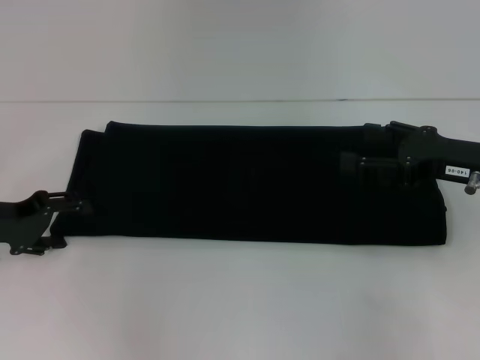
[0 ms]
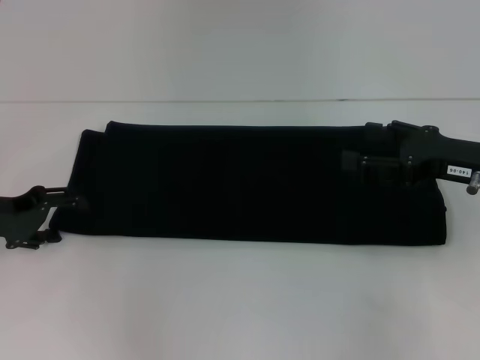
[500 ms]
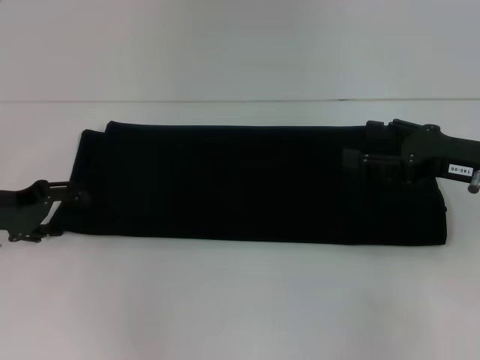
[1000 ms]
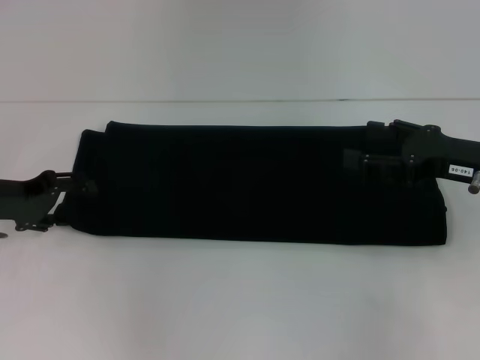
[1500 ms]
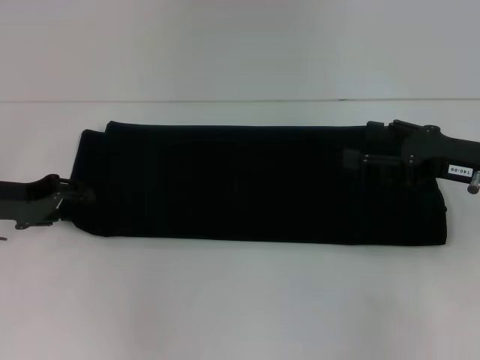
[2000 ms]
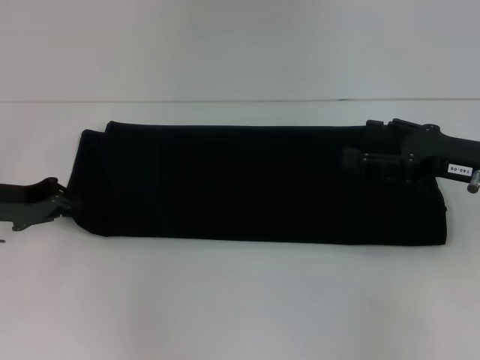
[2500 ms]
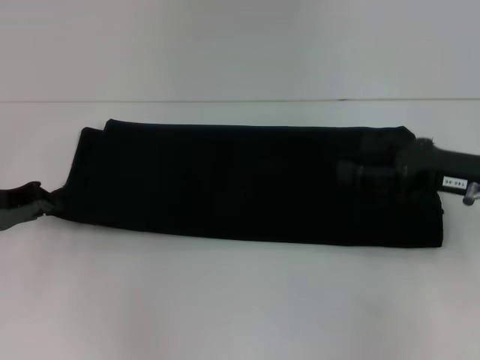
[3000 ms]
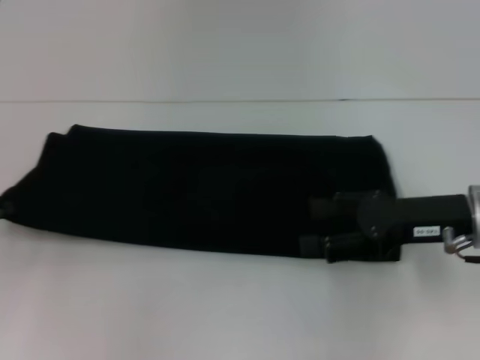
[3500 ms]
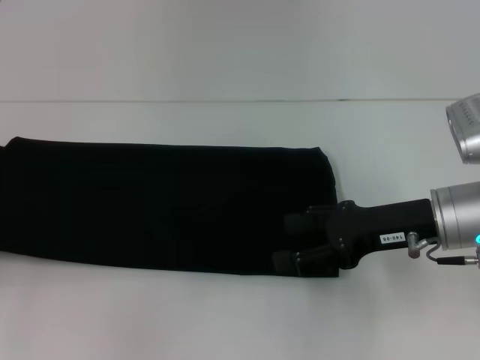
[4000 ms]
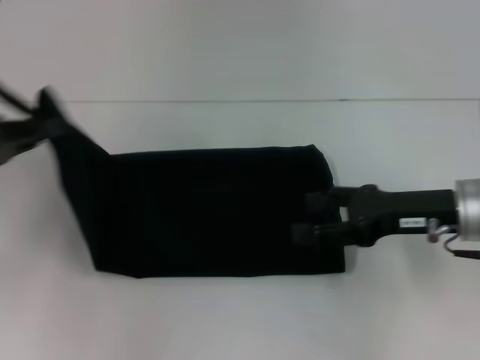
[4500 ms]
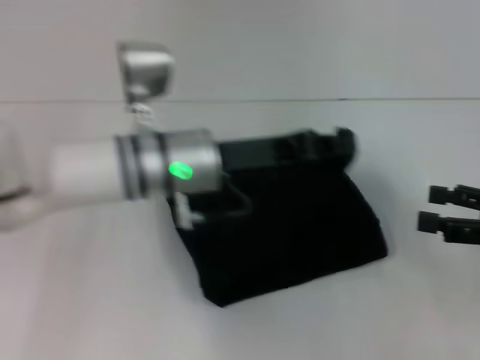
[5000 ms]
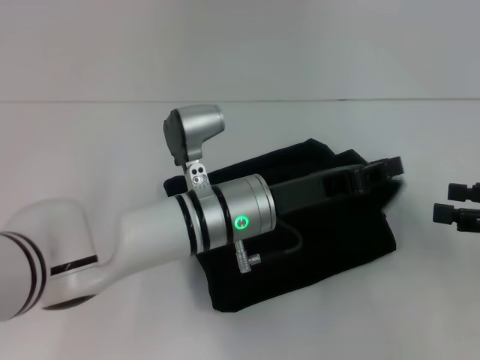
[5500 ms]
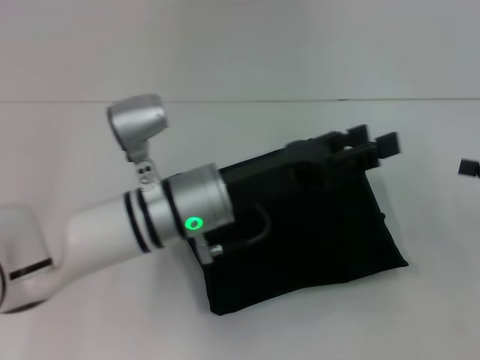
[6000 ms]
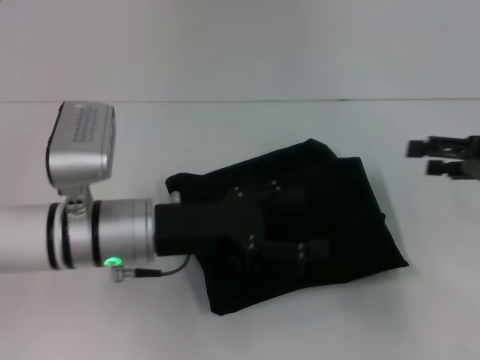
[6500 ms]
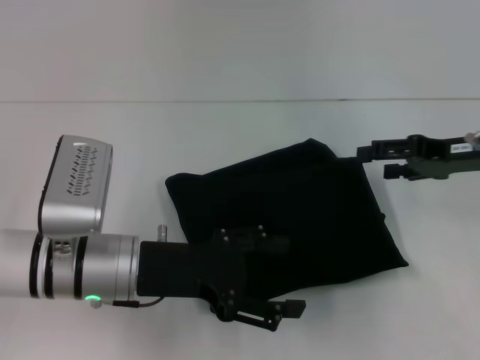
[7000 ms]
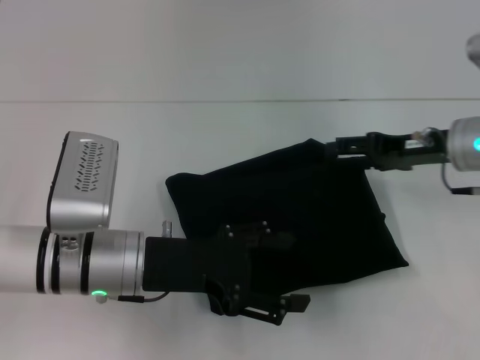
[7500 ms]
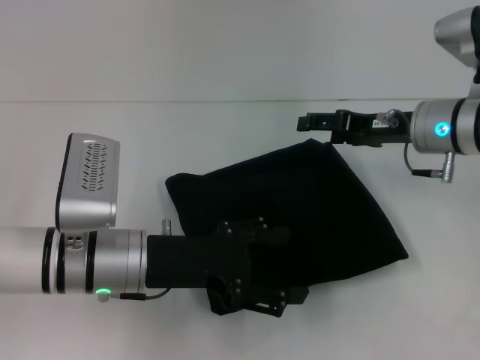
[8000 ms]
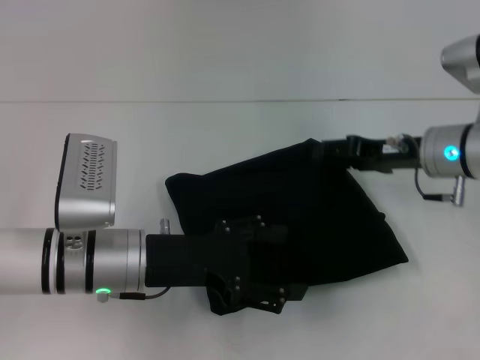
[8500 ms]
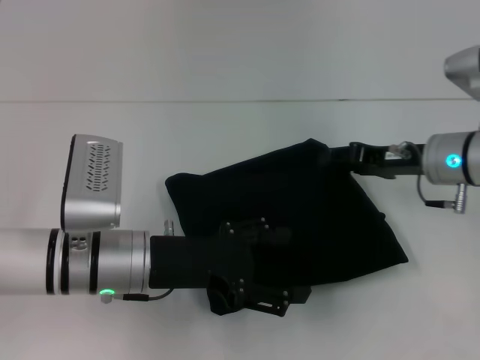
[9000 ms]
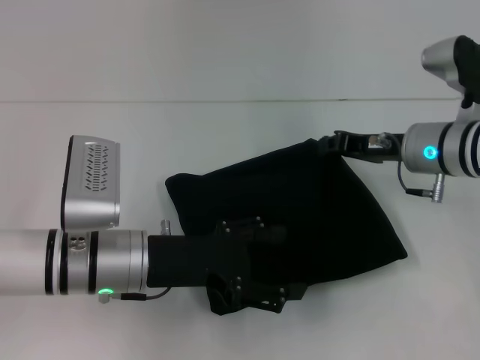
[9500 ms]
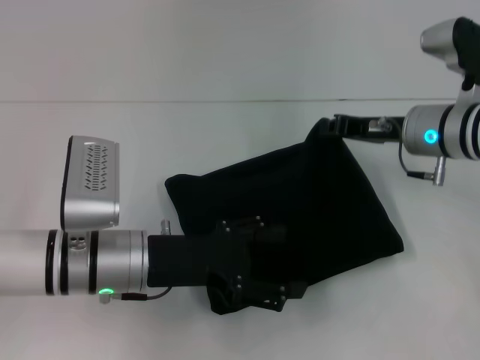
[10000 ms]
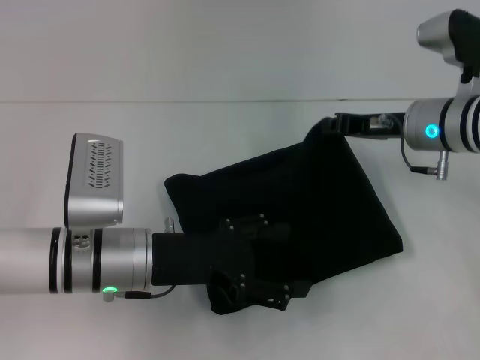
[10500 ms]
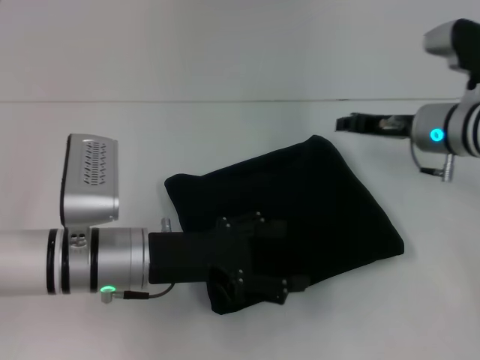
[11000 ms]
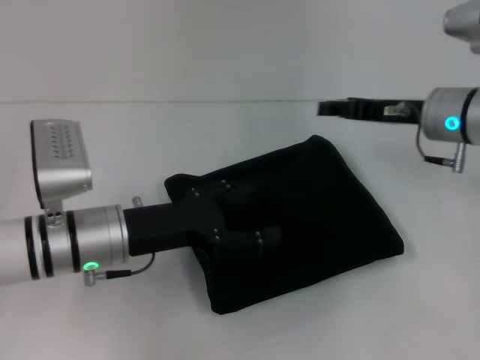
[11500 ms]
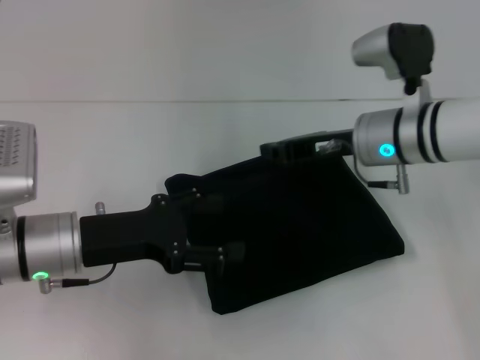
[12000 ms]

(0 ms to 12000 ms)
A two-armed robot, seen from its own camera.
Step, 0 ms - 9000 ms: Fold the clothes with your left hand.
0 ms - 2000 ms: The grippers move only a little.
2000 ms - 4000 ms: The left gripper shifts some 15 cm to the left and backward, and closes. Meanwhile the right gripper shifts approximately 5 cm to the left.
4000 ms - 6000 ms: The left gripper shifts roughly 35 cm to the right, and opens. Meanwhile the right gripper moves to the right, some 20 cm.
6000 ms - 8000 ms: The right gripper travels to the left and forward by approximately 20 cm. Meanwhile the left gripper goes some 10 cm to the left, and opens its fingers.
8000 ms - 10000 ms: The right gripper closes its fingers.
10000 ms - 12000 ms: Both grippers travel together to the left, about 5 cm. The right gripper opens, then closes once more.

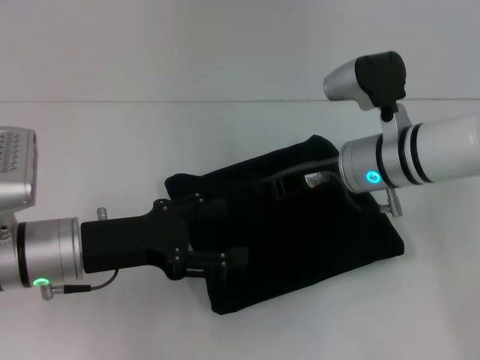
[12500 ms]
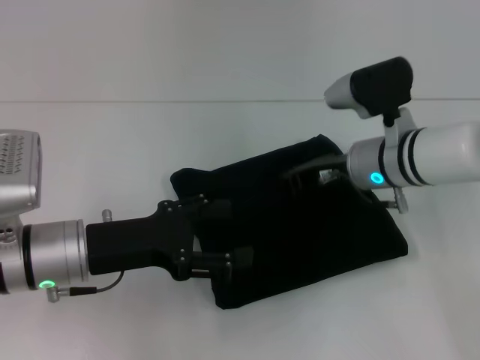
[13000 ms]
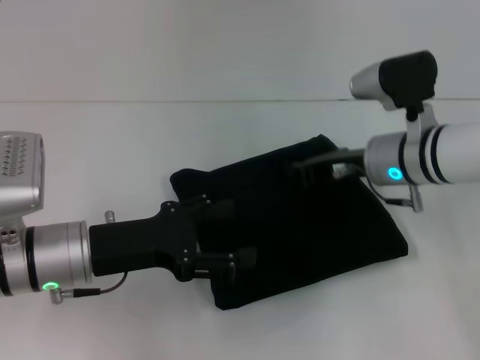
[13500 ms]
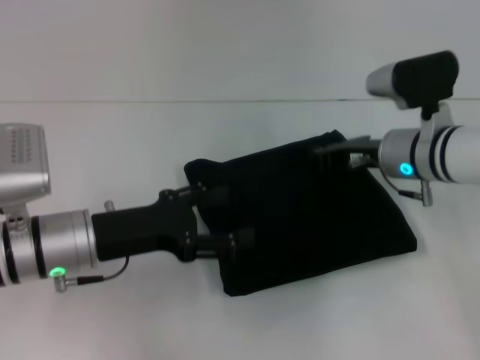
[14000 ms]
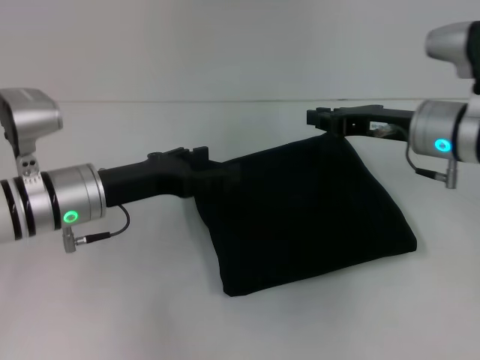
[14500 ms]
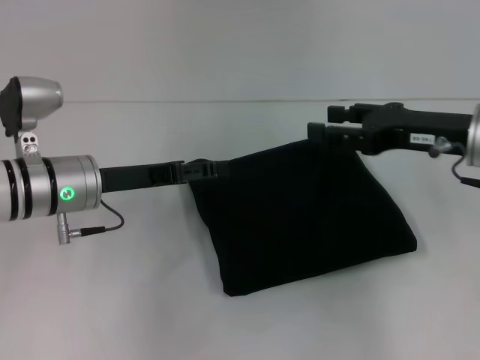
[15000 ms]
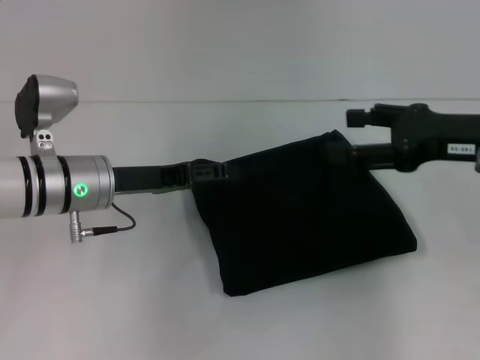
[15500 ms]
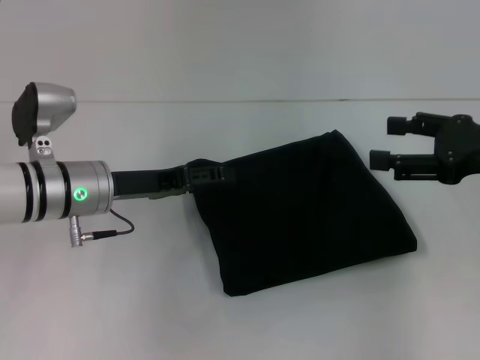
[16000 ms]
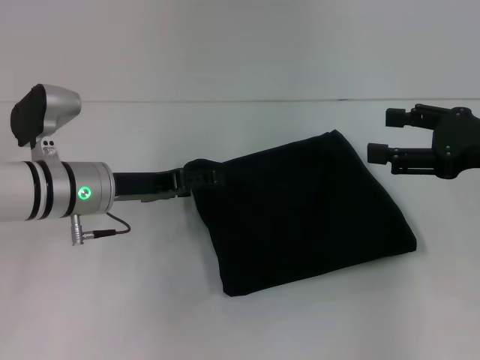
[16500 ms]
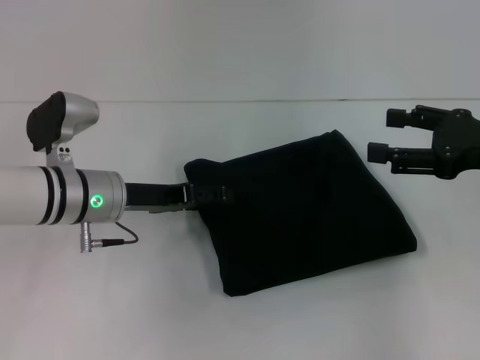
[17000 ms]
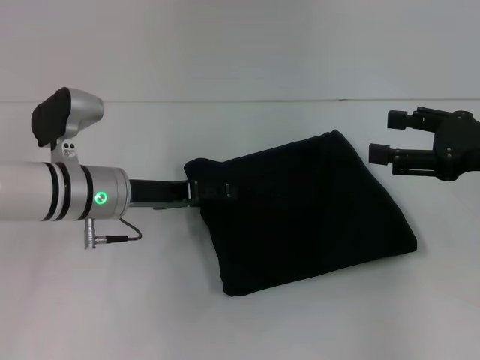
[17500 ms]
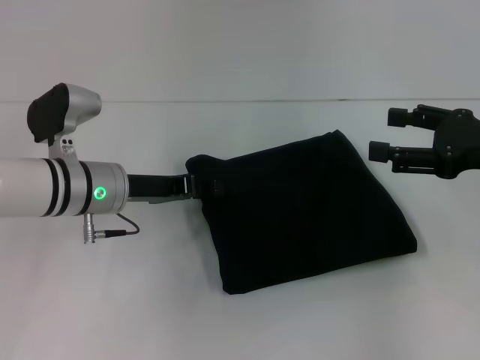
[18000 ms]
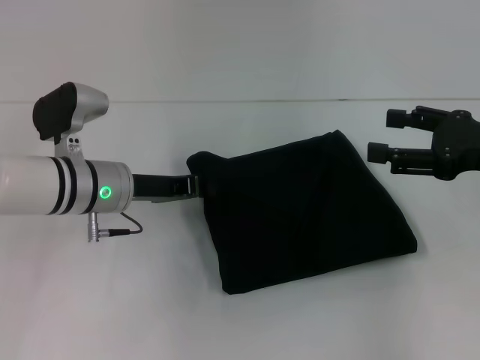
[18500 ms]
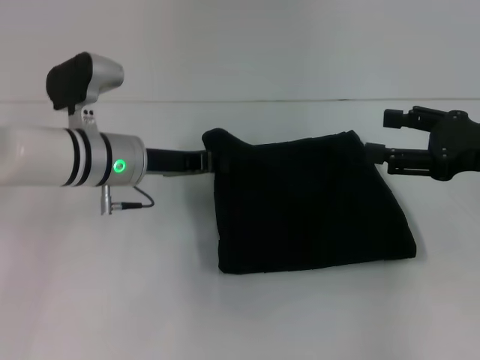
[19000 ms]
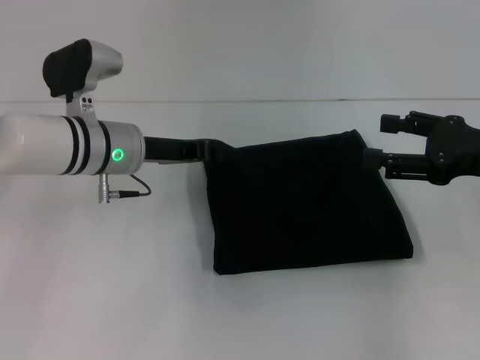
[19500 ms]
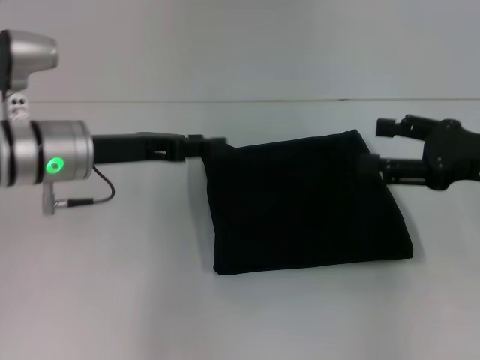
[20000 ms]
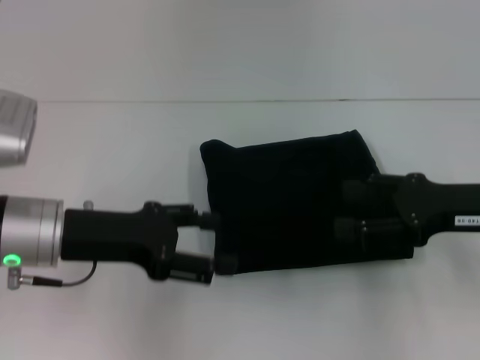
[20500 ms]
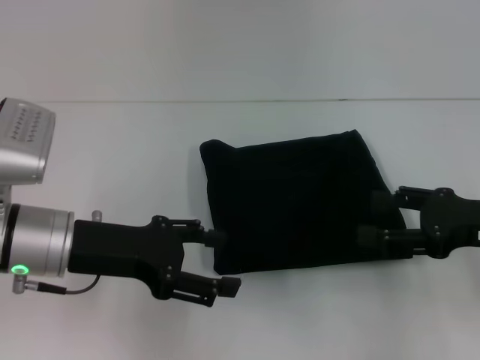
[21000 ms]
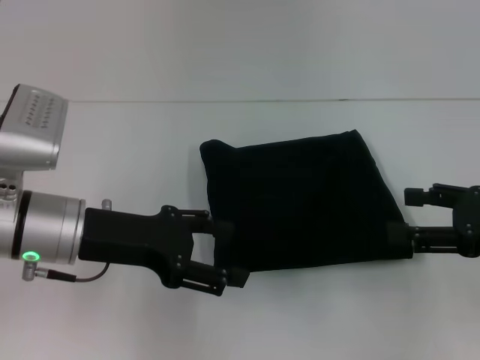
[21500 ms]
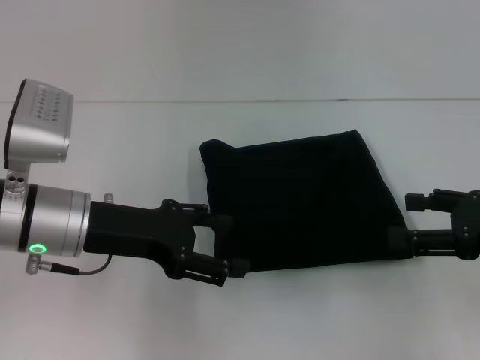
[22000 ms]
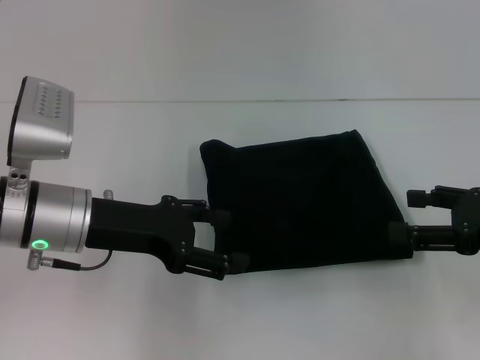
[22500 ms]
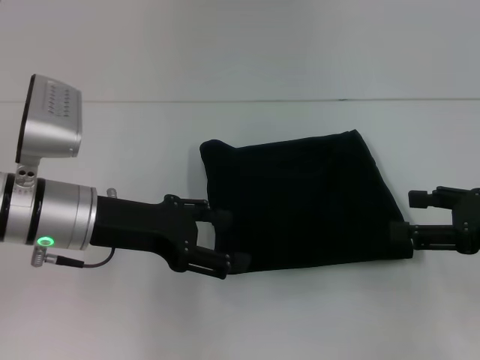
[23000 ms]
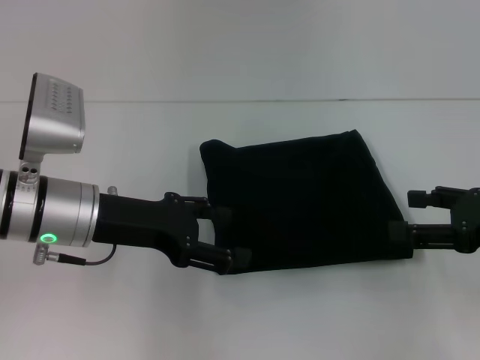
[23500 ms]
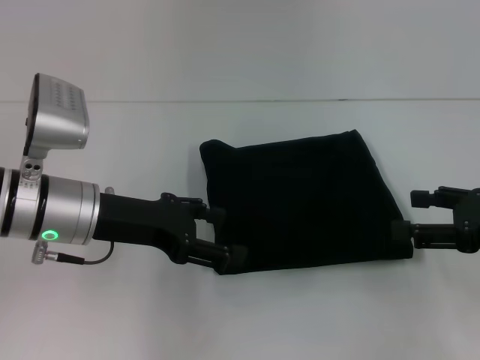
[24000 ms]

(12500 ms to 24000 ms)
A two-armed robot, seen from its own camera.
12500 ms - 14500 ms: The right gripper is displaced to the right by some 5 cm. Meanwhile the left gripper heads forward, covering approximately 5 cm.
14500 ms - 16500 ms: The right gripper heads to the right and backward, covering about 10 cm, and opens up.
16500 ms - 18500 ms: The left gripper closes.
18500 ms - 20000 ms: The left gripper is displaced upward by some 5 cm.
20000 ms - 22000 ms: The left gripper is displaced backward by some 5 cm, and opens; the right gripper changes place by about 5 cm.
22000 ms - 24000 ms: The grippers move only a little.

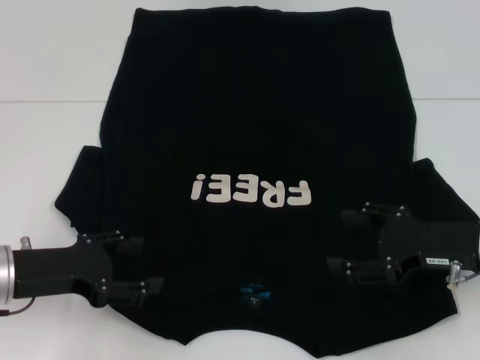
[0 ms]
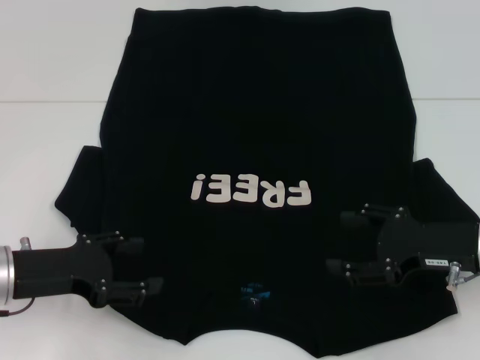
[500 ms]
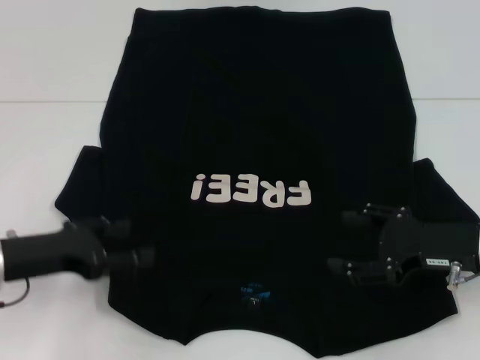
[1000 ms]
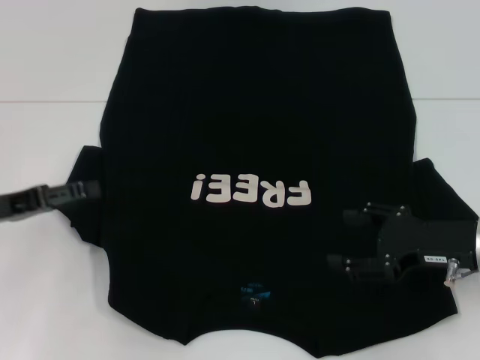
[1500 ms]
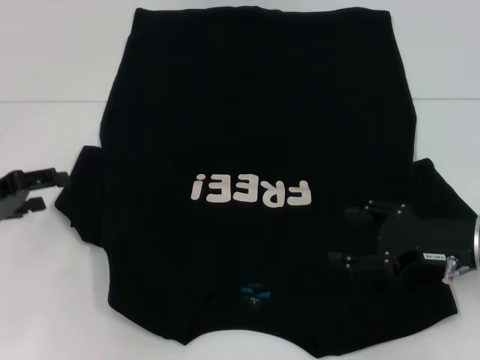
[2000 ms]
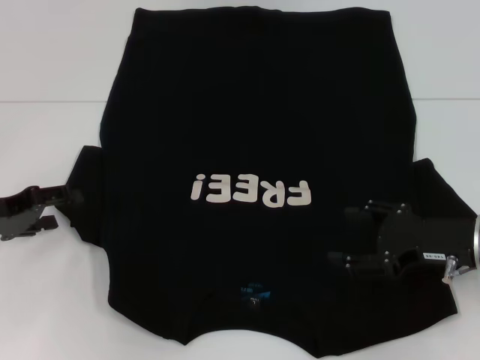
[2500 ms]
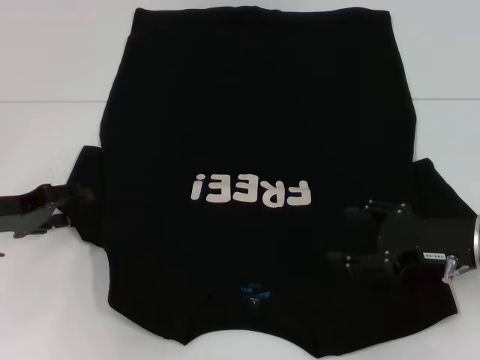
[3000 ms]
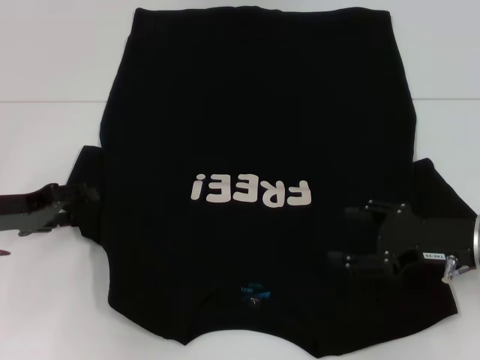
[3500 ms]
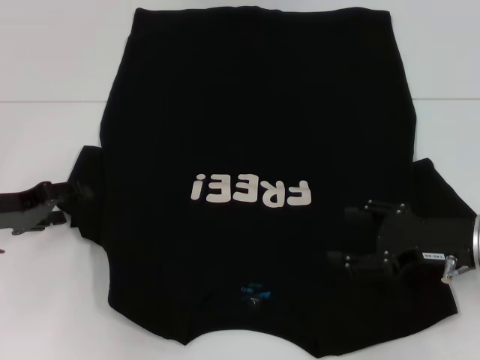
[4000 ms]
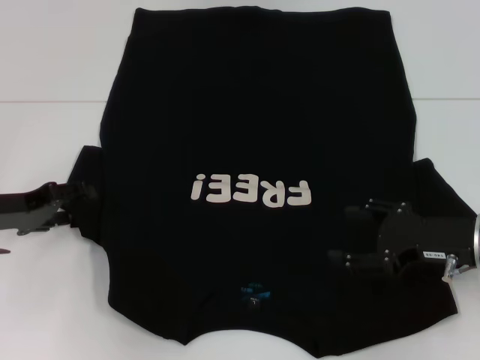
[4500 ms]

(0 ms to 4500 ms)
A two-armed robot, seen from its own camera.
0 ms - 2000 ms: The left gripper moves to the left, some 5 cm.
2000 ms - 4500 ms: The grippers stay close to where they were, moving slightly.
